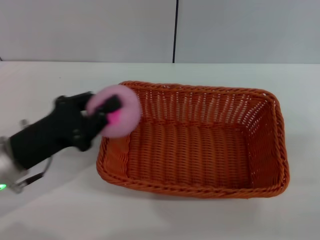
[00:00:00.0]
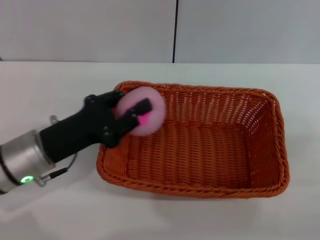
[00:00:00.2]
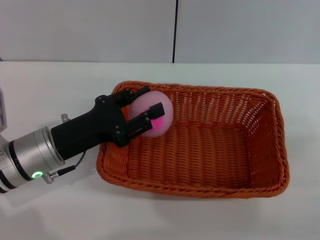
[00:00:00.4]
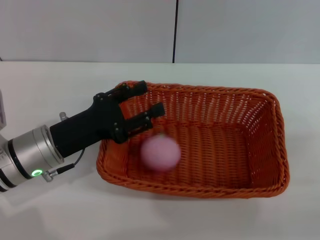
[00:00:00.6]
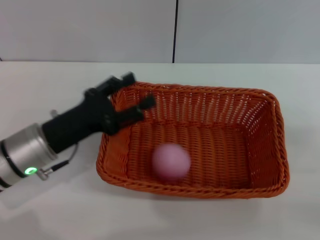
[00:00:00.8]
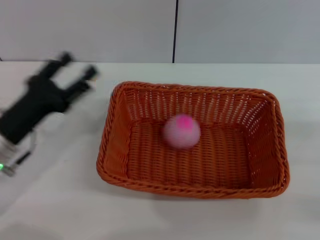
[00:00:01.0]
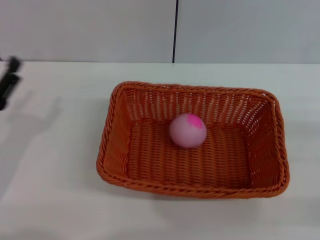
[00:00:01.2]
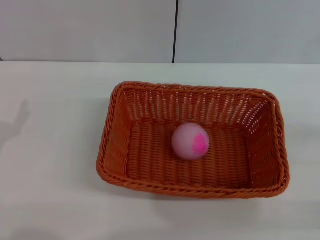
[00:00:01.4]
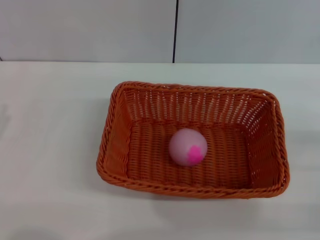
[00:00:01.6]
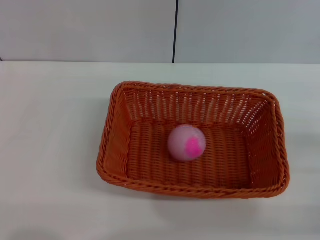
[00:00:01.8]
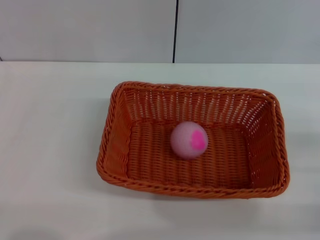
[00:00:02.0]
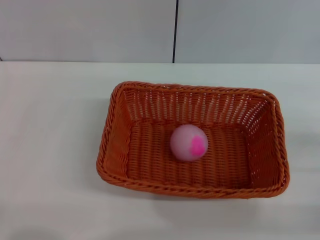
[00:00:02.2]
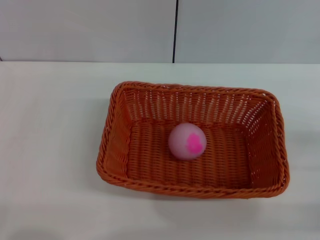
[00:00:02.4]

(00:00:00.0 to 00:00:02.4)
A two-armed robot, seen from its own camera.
Step, 00:00:00.0 - 00:00:00.8: Place the peach into the basket with the left gripper.
00:00:00.0 - 00:00:01.2: The left gripper moves roughly 5 cm, and opens up.
00:00:01.2 - 00:00:02.4: The left gripper heads backward, covering roughly 5 cm.
